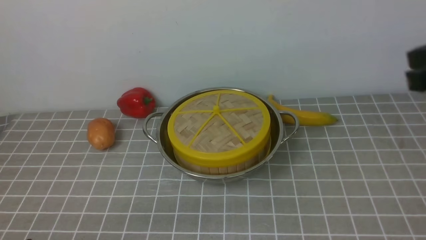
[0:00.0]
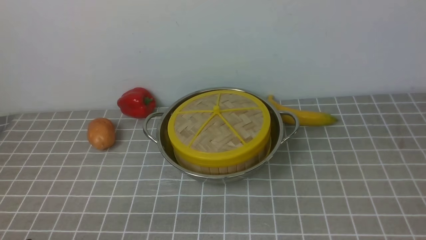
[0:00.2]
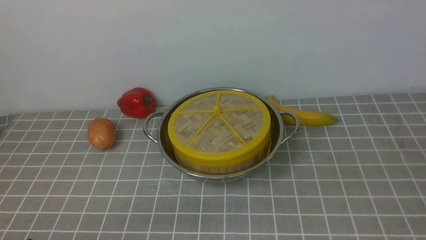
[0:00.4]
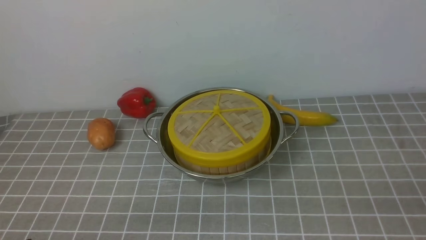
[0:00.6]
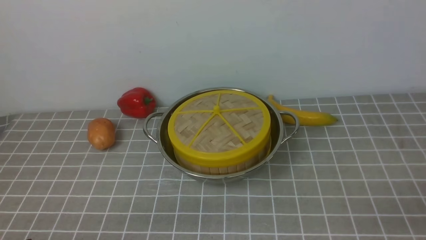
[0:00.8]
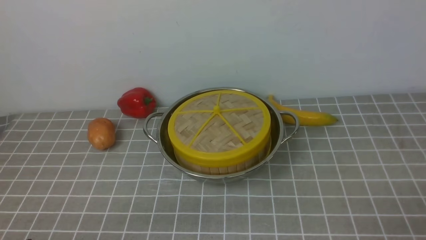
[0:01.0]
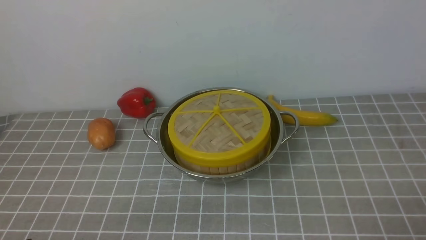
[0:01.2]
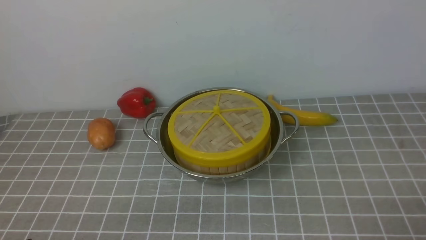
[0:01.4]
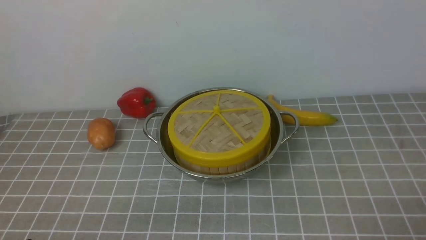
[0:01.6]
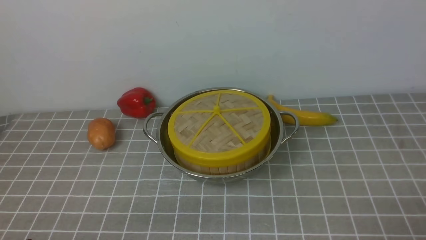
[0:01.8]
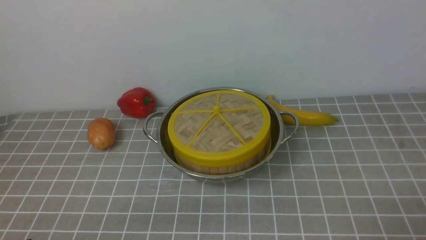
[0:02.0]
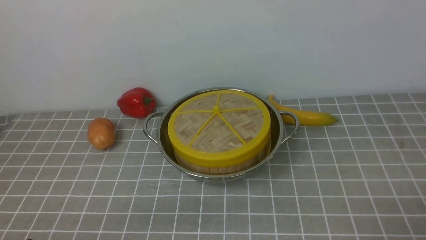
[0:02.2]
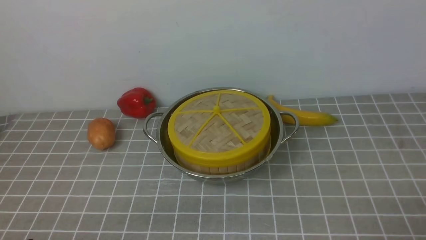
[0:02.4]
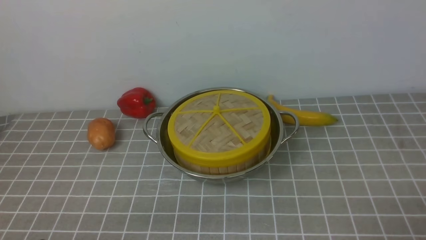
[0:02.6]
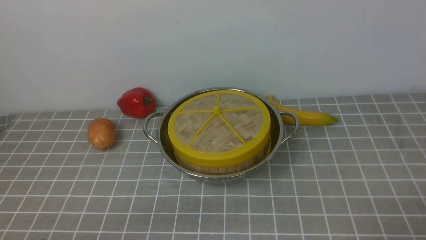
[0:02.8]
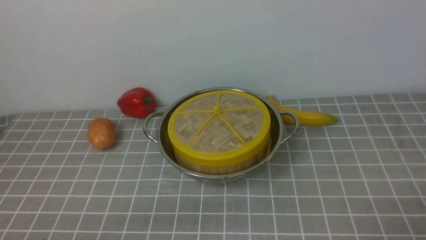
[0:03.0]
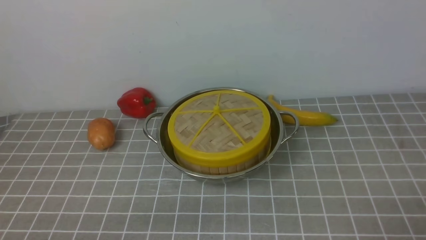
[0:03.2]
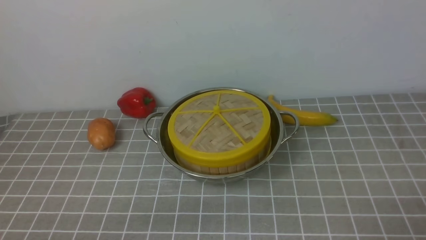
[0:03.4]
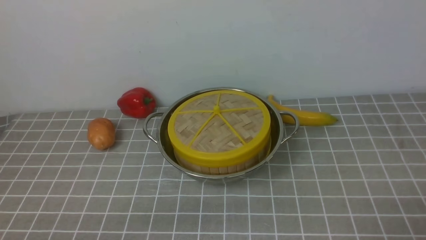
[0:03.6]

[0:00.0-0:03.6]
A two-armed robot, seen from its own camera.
Task of the whole recording: place the steamer in the pot on the grey tablecloth, and put the lid on the steamer.
0:00.0 to 0:01.8: The right gripper is displaced downward and backward by roughly 25 cm, and opens.
